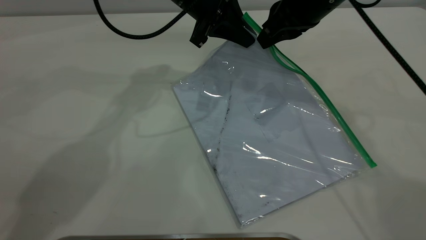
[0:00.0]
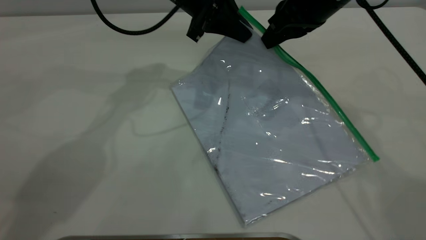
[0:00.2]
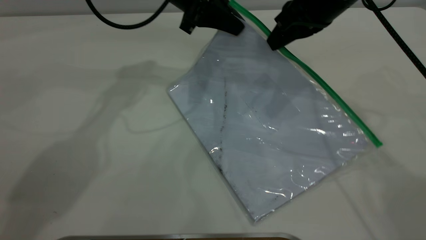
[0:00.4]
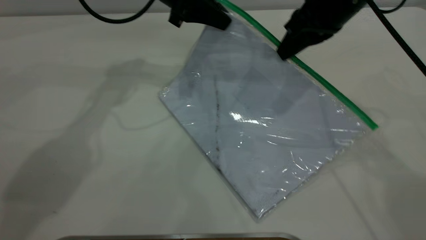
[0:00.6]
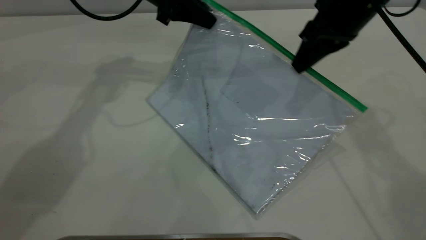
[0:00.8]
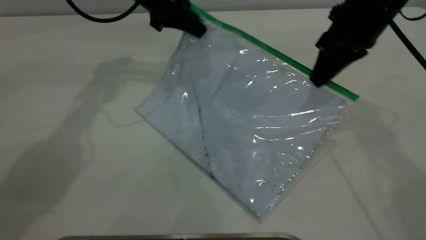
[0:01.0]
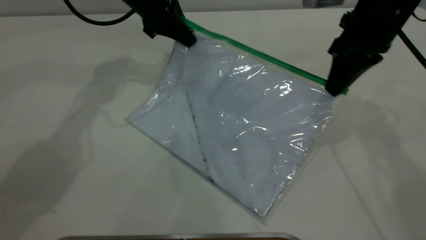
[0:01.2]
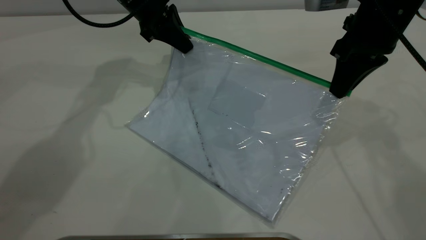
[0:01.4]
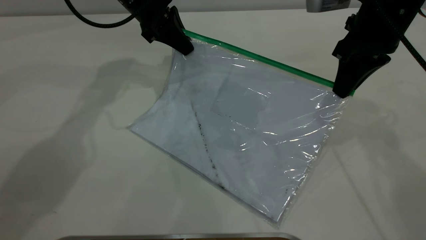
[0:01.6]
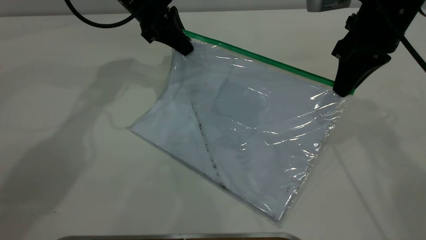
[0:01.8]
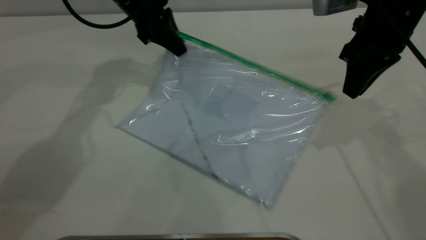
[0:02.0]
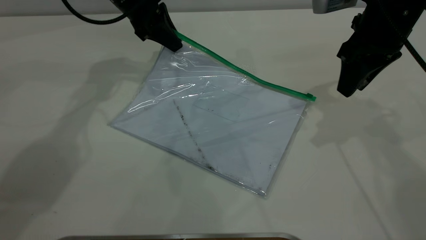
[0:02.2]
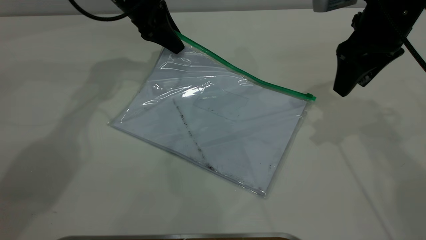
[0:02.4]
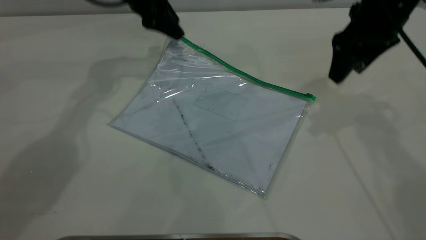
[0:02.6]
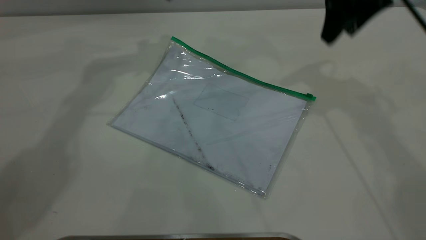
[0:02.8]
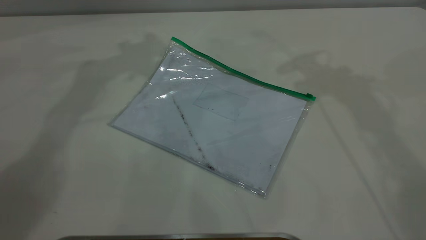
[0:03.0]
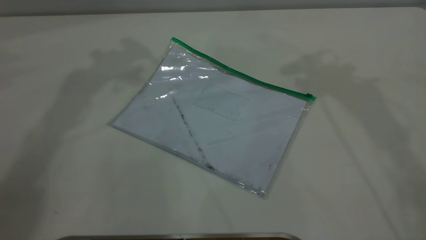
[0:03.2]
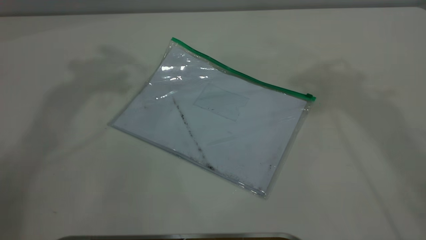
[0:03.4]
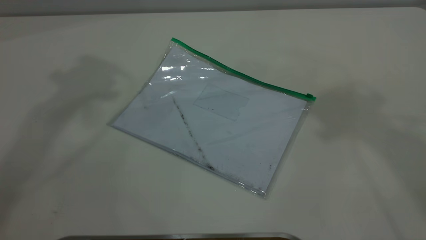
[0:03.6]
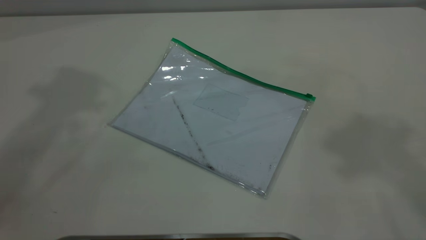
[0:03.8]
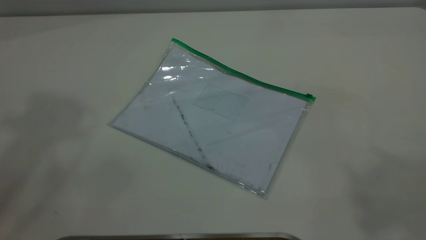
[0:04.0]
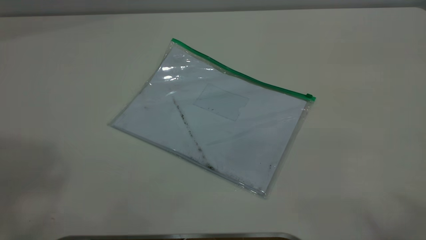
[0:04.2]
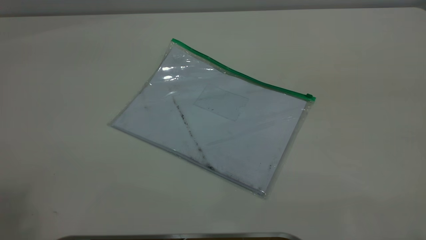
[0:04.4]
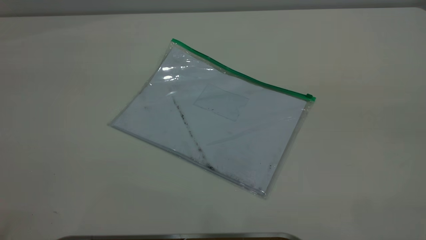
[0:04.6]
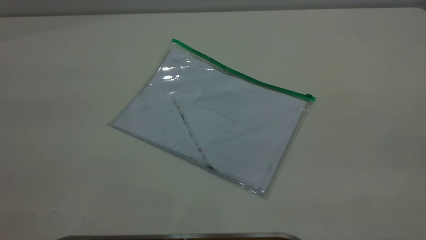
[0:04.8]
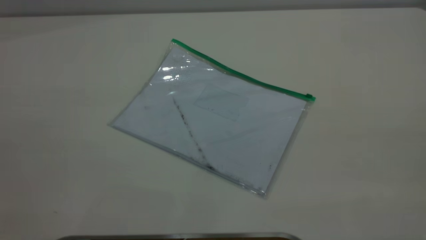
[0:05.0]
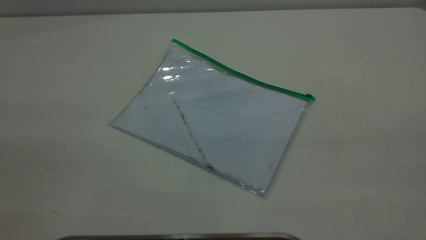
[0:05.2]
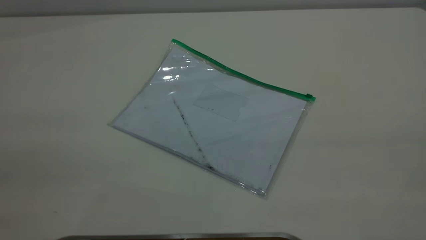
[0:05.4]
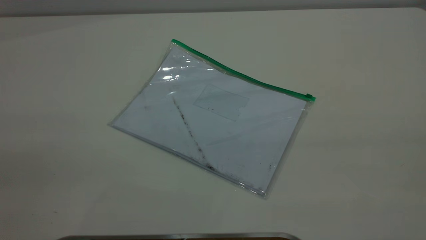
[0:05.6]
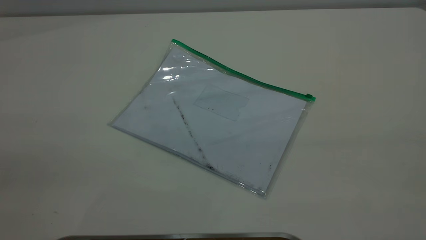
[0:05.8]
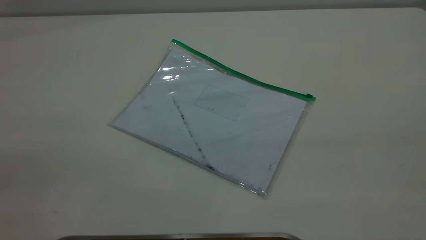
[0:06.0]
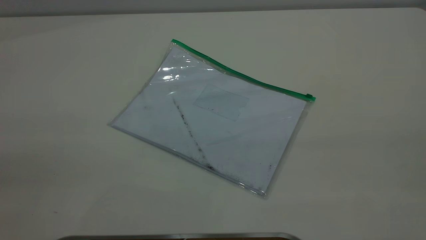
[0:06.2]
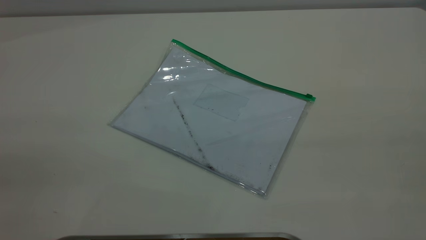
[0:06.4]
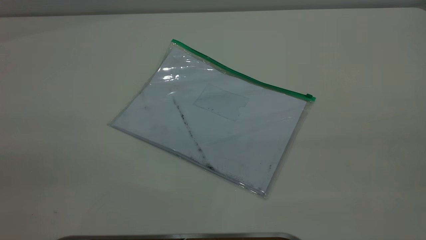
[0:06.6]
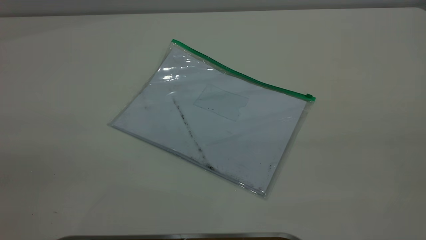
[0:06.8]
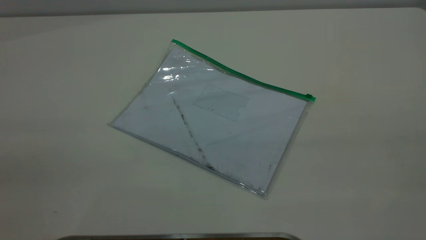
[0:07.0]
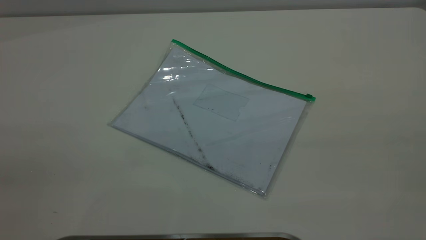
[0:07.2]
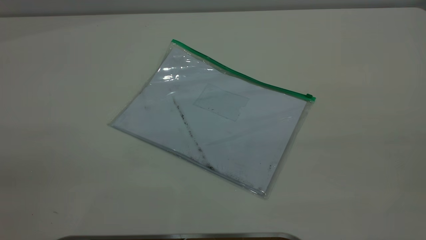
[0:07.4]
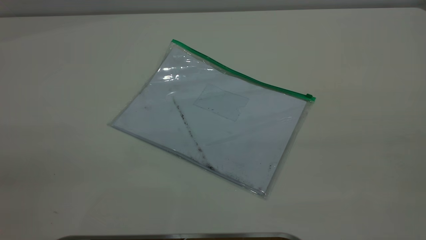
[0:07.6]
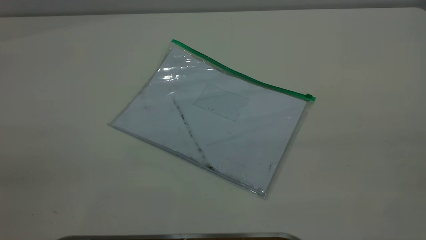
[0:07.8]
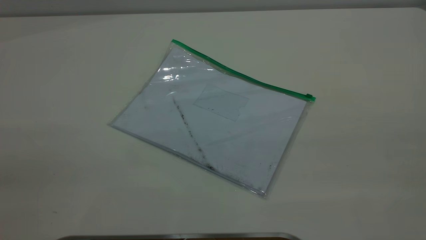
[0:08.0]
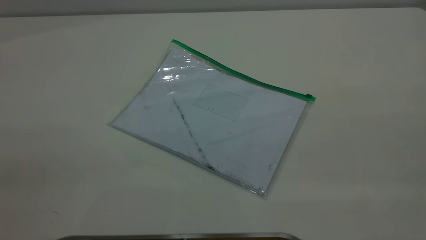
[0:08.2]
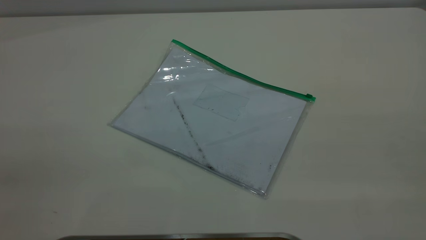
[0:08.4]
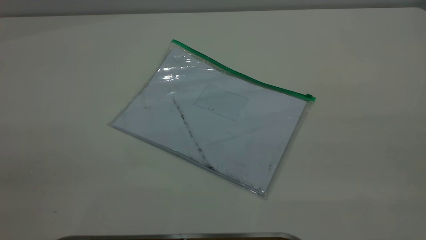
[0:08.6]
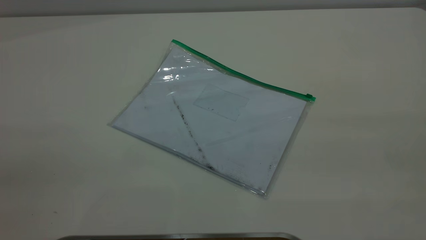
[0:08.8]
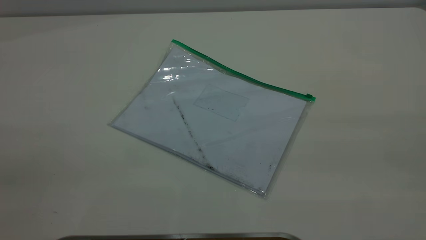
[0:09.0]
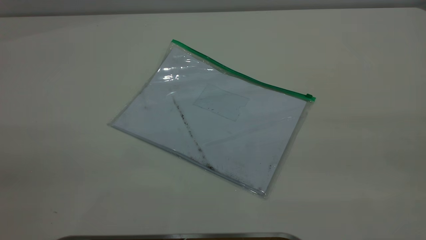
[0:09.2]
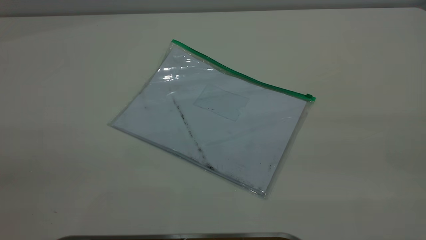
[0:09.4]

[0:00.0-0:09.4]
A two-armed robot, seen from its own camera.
Step, 0:02.2 to 0:02.6: Place the transparent plastic bag.
0:00.0 to 0:01.6: The right gripper is displaced to the right by roughly 5 cm; the left gripper heads to the left, covering roughly 10 cm.
0:01.6 to 0:03.2: Both grippers travel together upward, about 25 cm. The right gripper opens. Meanwhile the left gripper opens its fingers.
